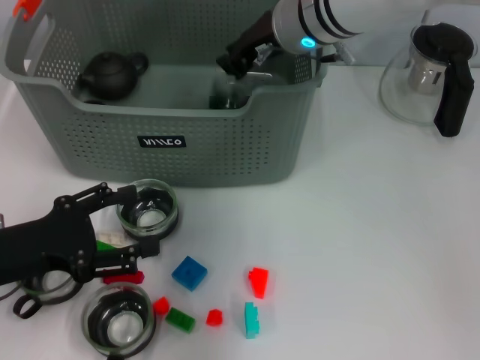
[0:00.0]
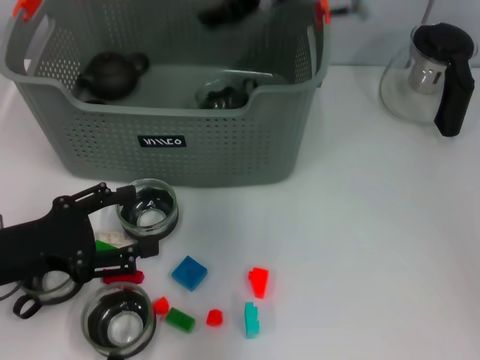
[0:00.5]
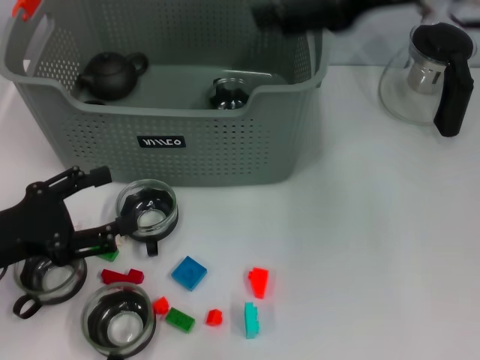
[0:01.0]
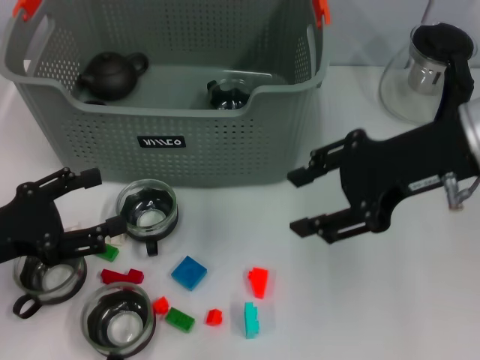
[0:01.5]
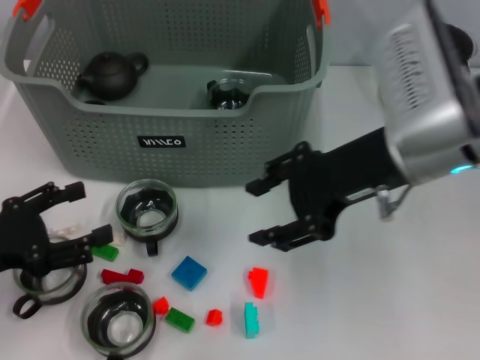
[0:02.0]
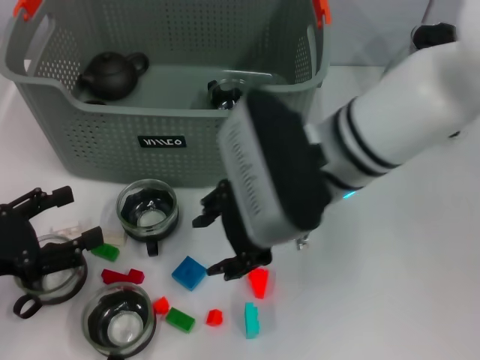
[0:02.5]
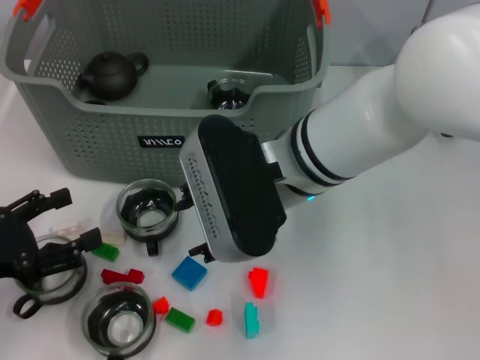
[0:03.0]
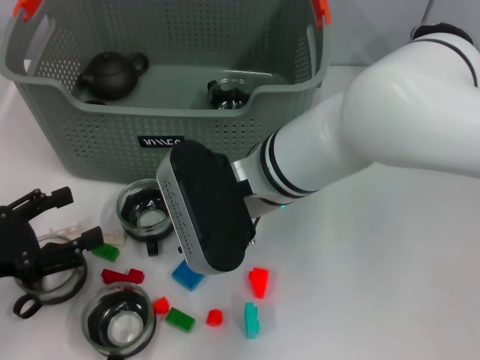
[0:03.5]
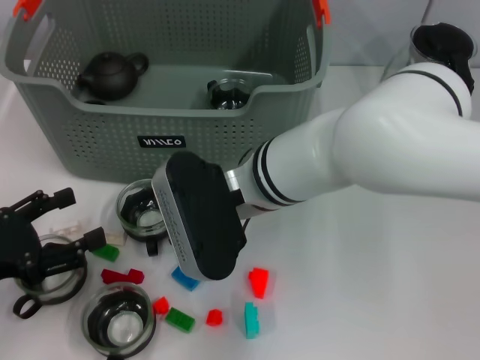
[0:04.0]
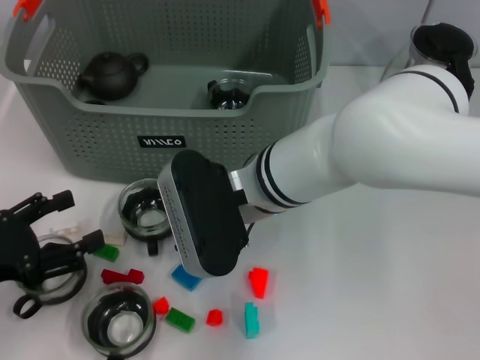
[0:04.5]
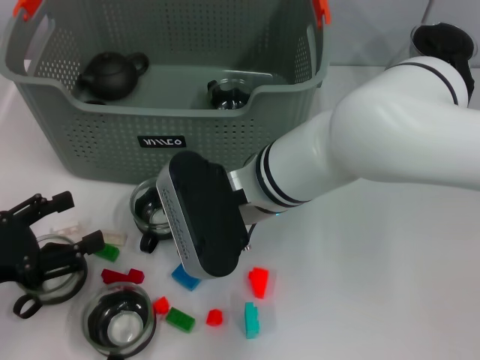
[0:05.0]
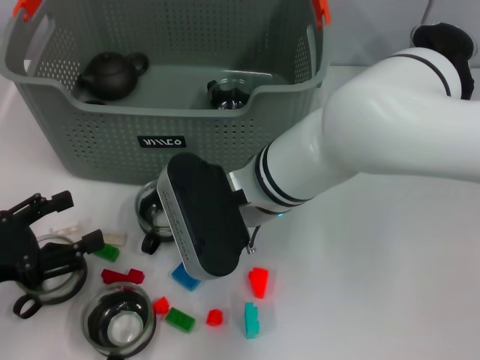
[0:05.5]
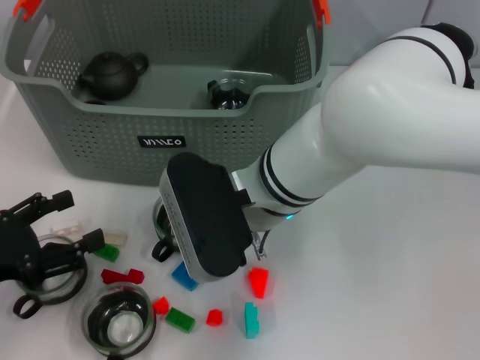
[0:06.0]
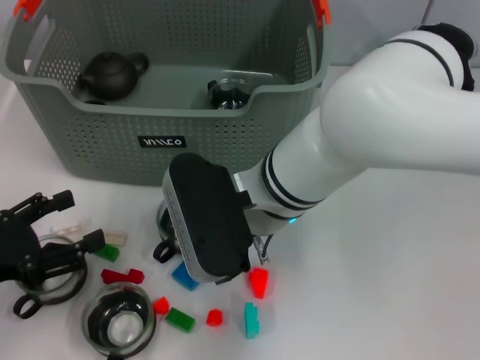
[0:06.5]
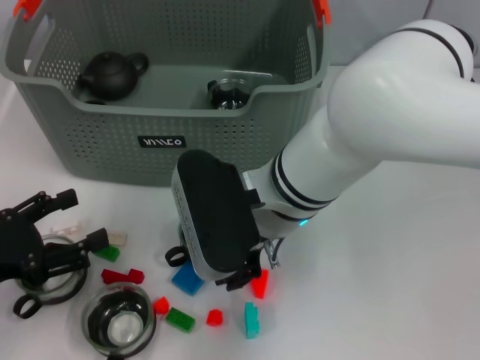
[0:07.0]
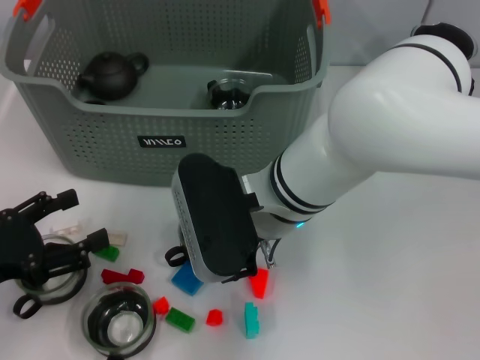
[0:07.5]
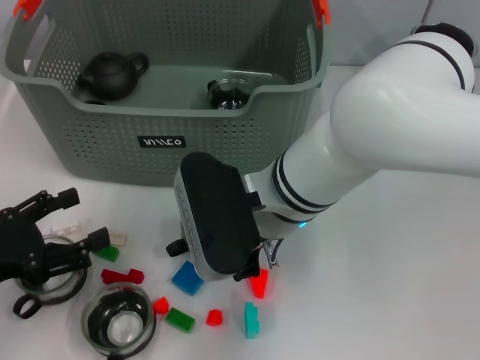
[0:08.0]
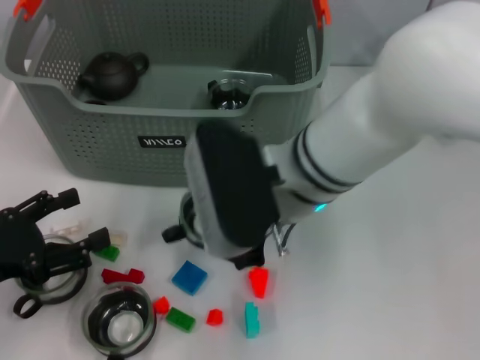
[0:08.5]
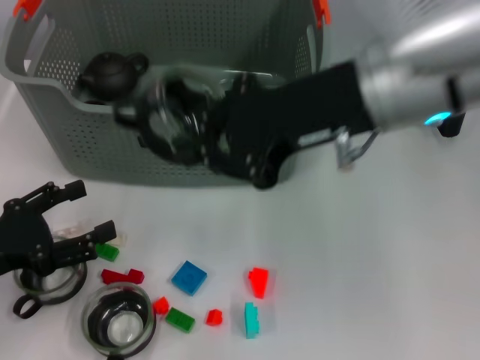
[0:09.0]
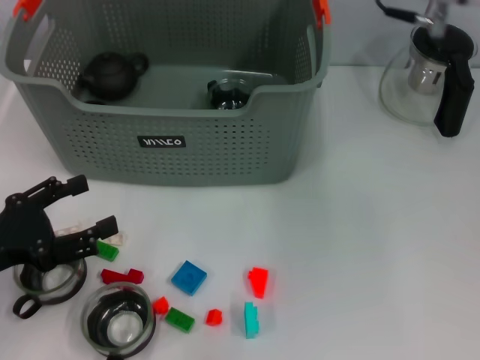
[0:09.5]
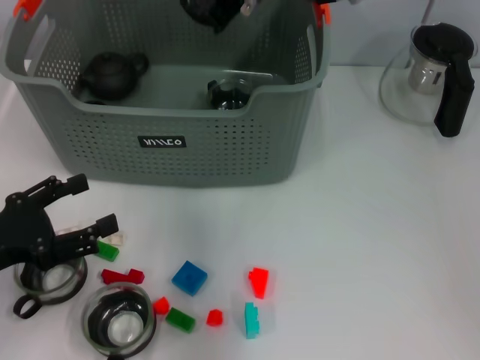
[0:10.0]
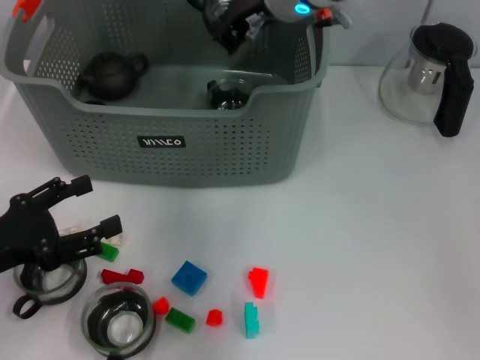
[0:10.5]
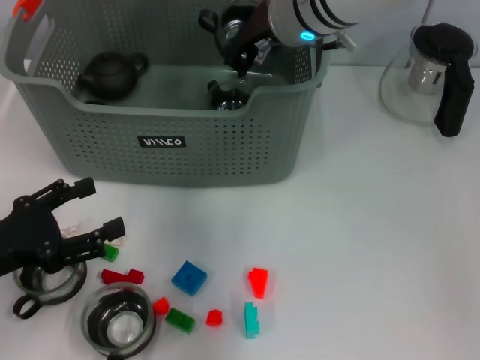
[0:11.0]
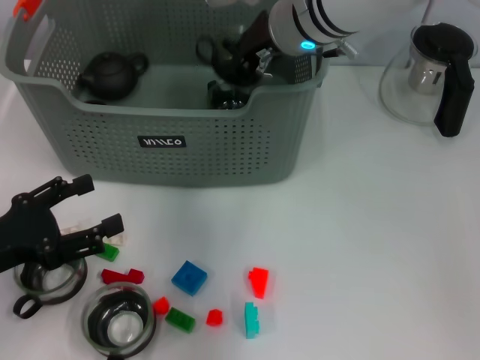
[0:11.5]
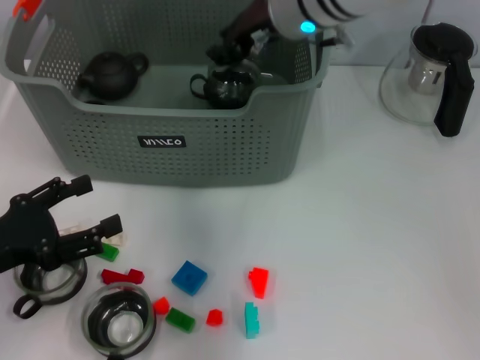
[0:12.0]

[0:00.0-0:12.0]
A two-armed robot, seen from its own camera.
Task of the whole recording: pick up the teacup on the table and place it into the storage bin, pick up the block on the table and place it into the storage bin.
Step, 0:00.5 to 0:08.0: Grasp the cup with right gripper.
Step, 0:08.5 to 0:11.5: Place the cup in the storage box with right gripper.
0:00.0 to 0:02.0: The right gripper moves backward and to the right, roughly 15 cm, and opens.
0:02.0 to 0:04.0: The right gripper heads to the left and downward, covering approximately 15 cm.
0:04.0 to 0:06.0: The grippers move only a little.
0:06.0 to 0:08.0: The right gripper closes its fingers.
0:08.0 to 0:10.0: The right gripper shifts approximately 20 cm upward and forward.
0:10.0 to 0:12.0: The right gripper moves downward, about 5 cm.

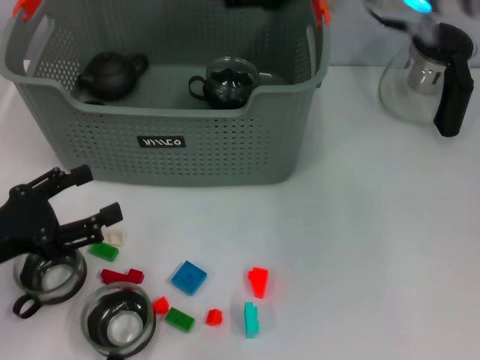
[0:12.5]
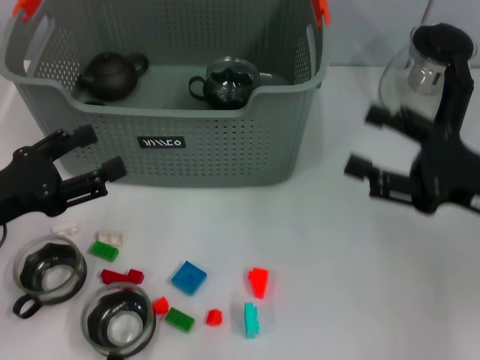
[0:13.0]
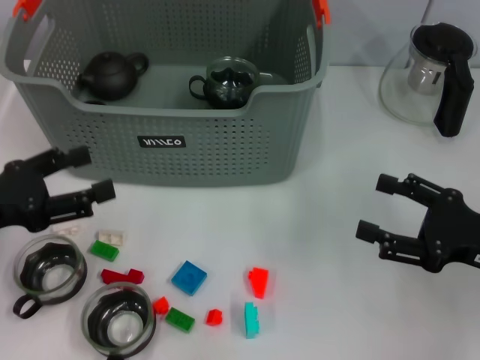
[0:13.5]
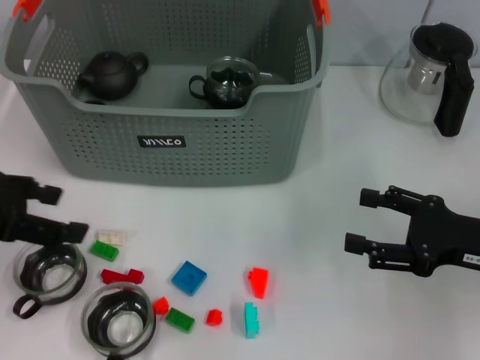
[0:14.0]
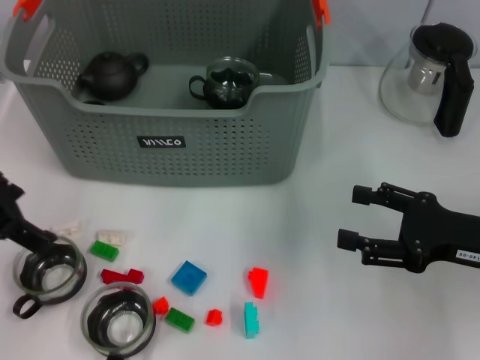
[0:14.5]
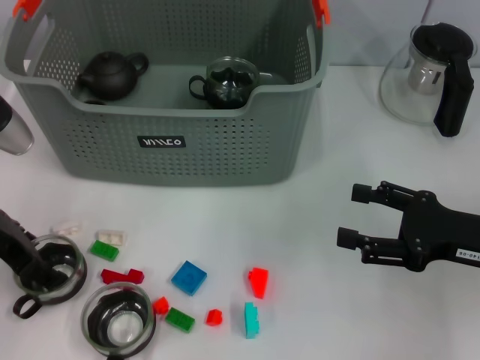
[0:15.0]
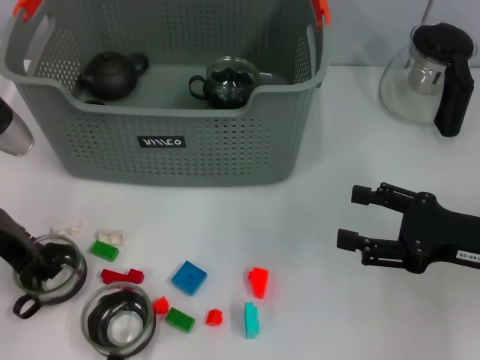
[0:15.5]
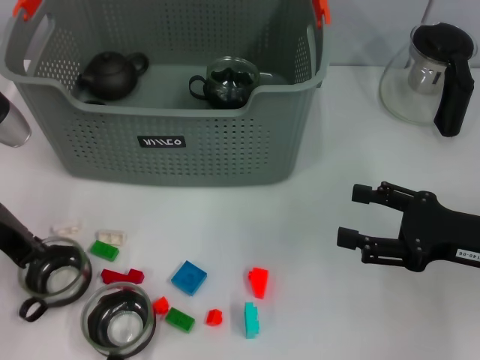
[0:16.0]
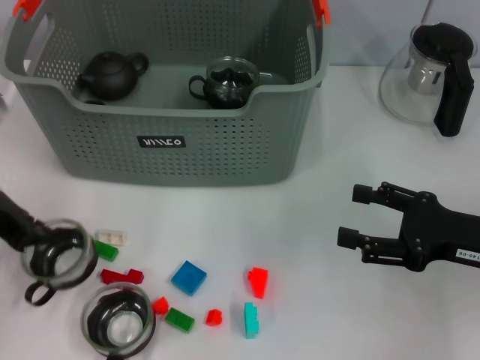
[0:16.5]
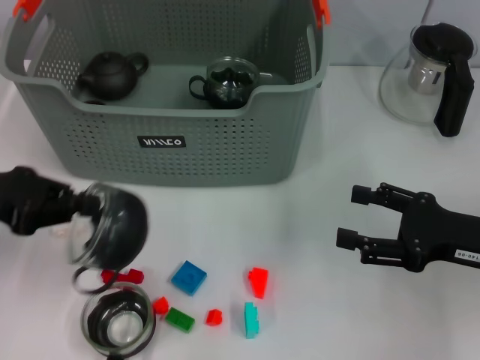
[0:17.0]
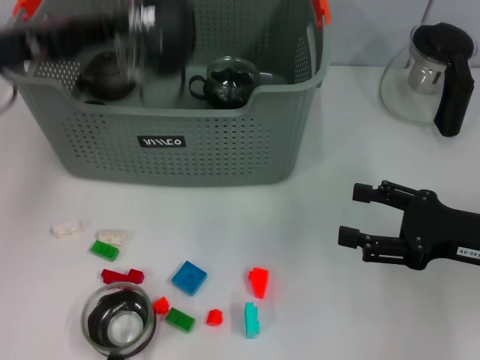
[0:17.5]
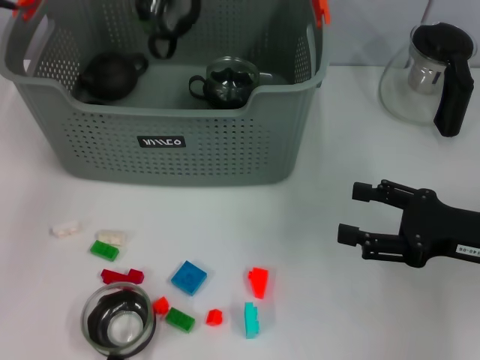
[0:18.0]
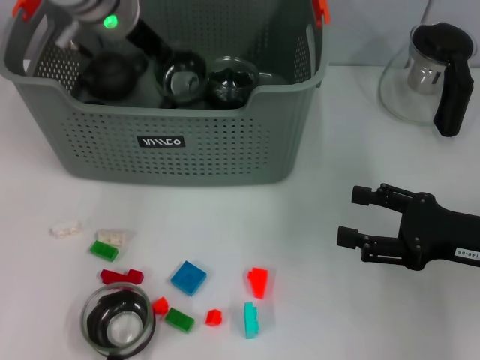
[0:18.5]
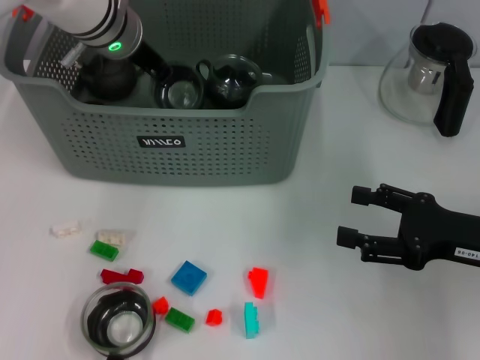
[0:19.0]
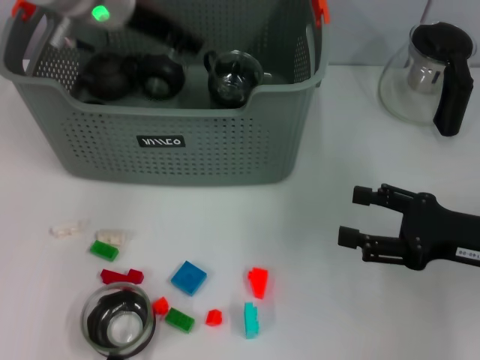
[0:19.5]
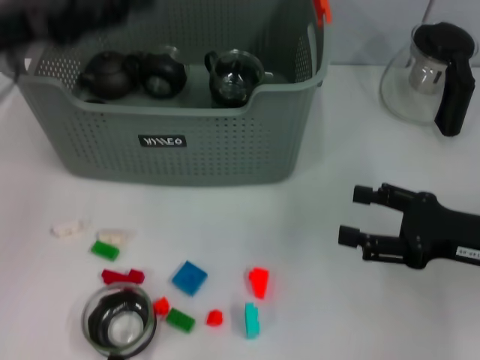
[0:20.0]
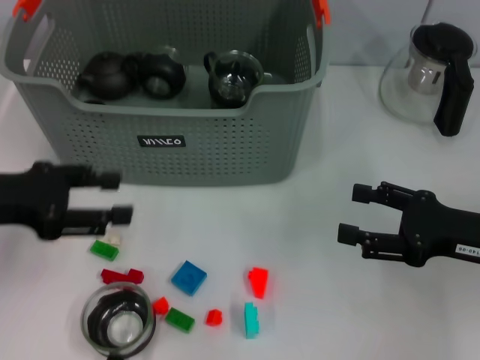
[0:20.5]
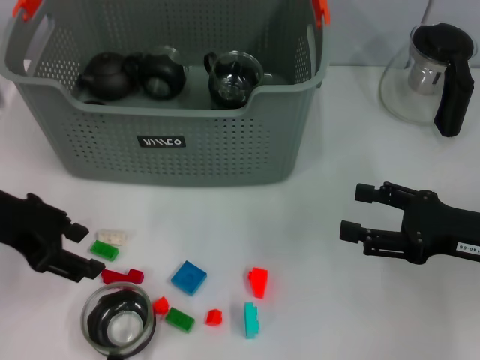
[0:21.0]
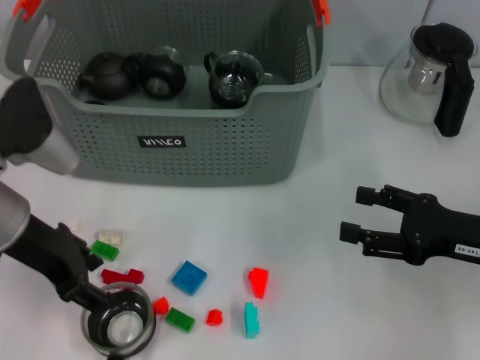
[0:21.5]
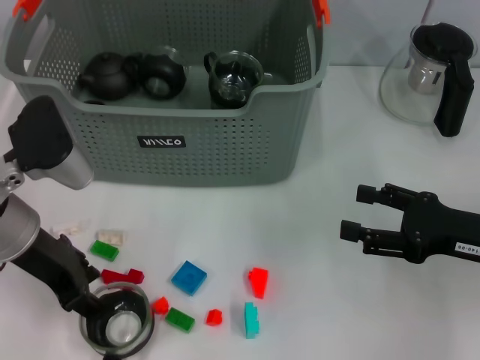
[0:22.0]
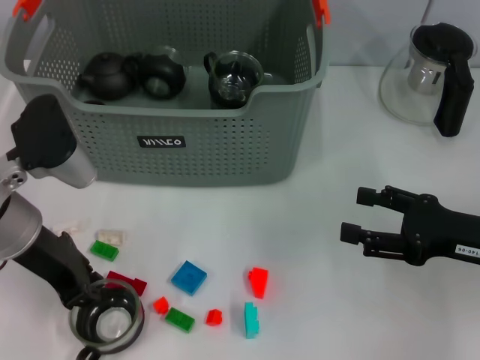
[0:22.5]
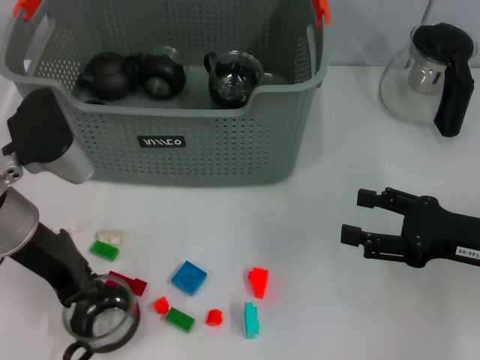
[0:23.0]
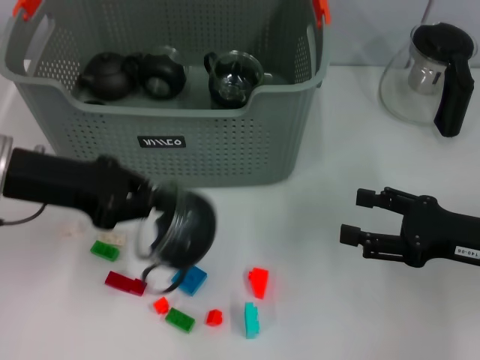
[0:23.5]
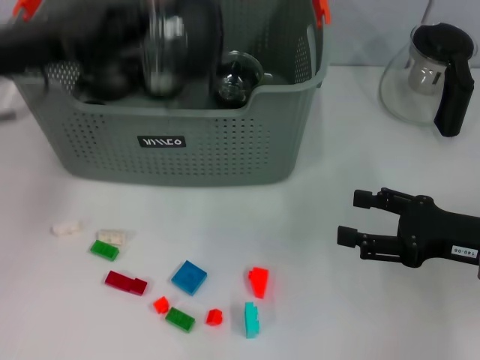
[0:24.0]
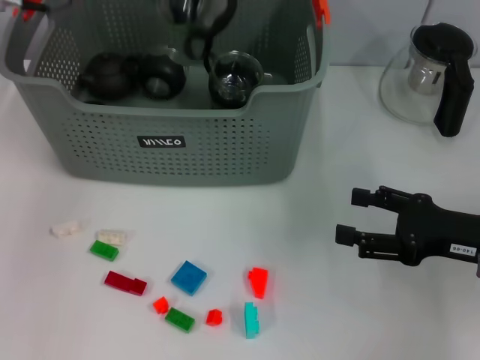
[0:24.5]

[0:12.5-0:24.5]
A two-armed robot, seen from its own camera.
Task of the whole recording: pick up the teacup on the table and place it into the storage bin, pick up the block on the table and place it into the storage bin.
Step, 0:12.5 to 0:16.0: Grasp the cup with left gripper.
Step, 0:16.5 to 0:19.0: Place the cup in the storage box with left gripper.
Step, 0:19.5 to 0:22.5: Grasp the cup with left gripper.
0:12.5 to 0:14.5: The right gripper travels downward, to the right and backward by some 25 cm. Meanwhile the left gripper travels upward and forward by approximately 15 cm.
0:14.5 to 0:16.5: The left gripper is displaced downward by approximately 5 cm, and closes up.
0:16.5 to 0:18.5: The left gripper is displaced forward and to the right by some 20 cm.
0:18.5 to 0:20.5: The left gripper heads backward and to the left, covering approximately 25 cm, and opens.
0:20.5 to 0:22.5: The left gripper goes some 10 cm to the right.
0:22.5 to 0:24.5: The left gripper shifts roughly 20 cm upward and forward, and closes its fingers.

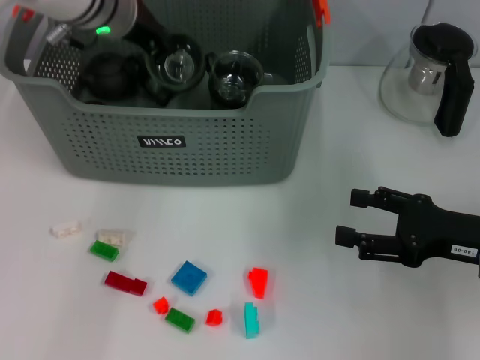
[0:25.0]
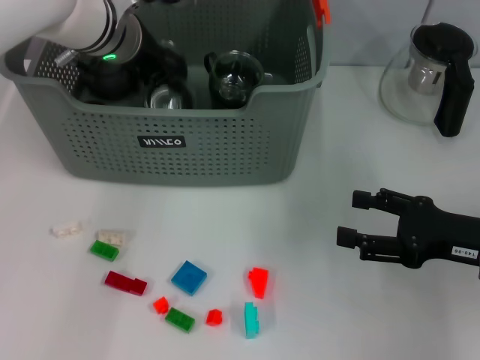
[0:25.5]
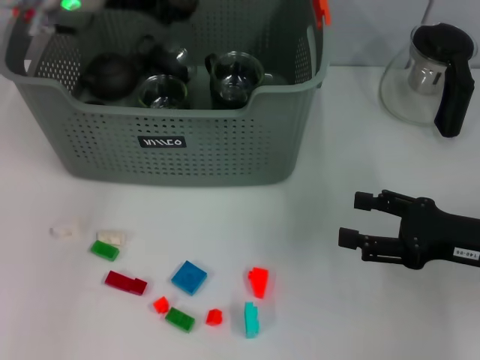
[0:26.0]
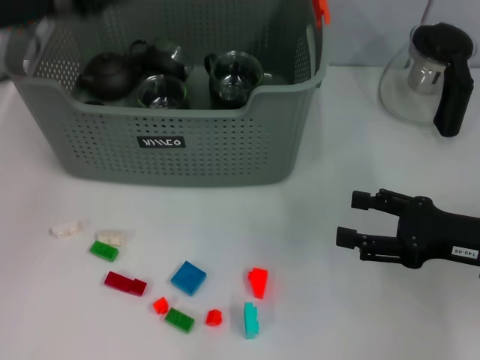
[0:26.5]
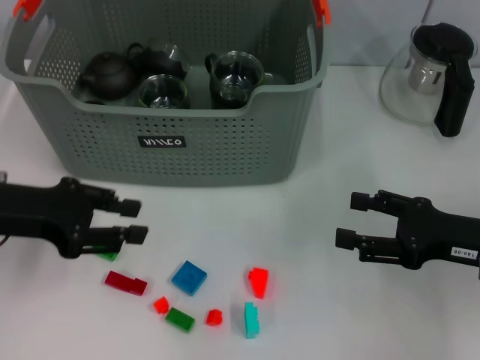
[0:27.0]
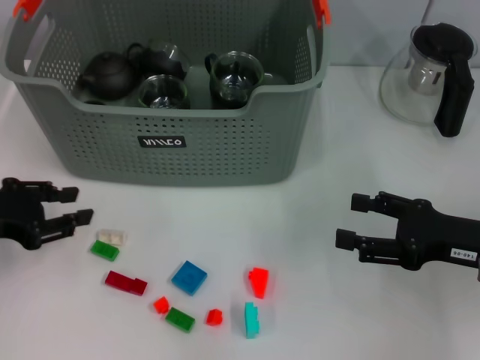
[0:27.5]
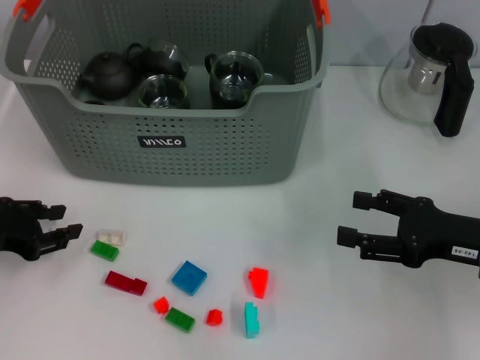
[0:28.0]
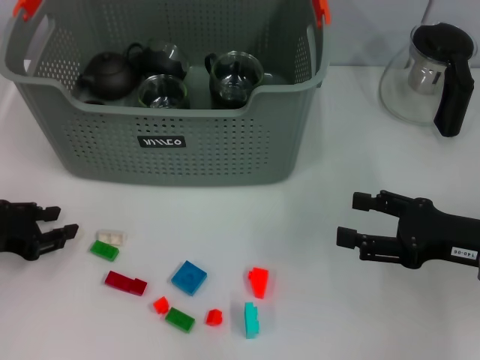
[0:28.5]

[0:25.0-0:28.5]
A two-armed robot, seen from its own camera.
Task of the whole recording: pick up the teacup on the table and place it into the storage bin, pick up the block on the table and place it into the storage bin.
0:25.0 to 0:27.0: The left gripper is displaced backward, to the left and downward by some 25 cm, and opens.
0:27.0 to 0:28.5: The left gripper moves downward and to the left, approximately 10 cm.
